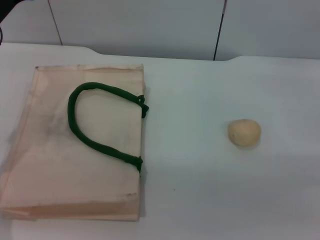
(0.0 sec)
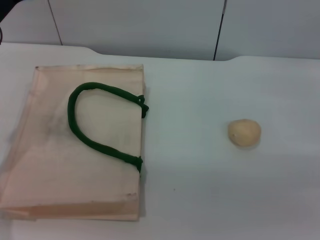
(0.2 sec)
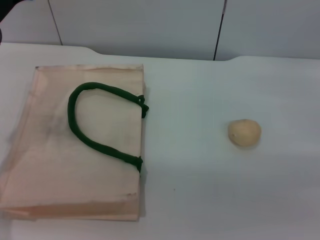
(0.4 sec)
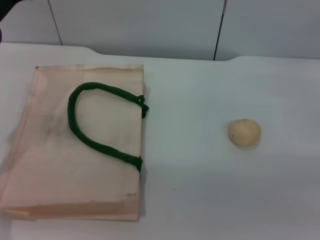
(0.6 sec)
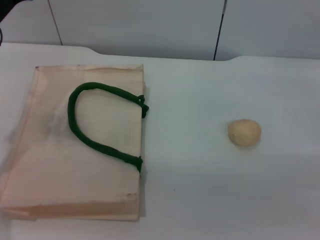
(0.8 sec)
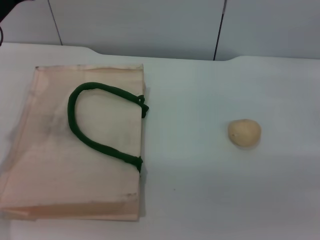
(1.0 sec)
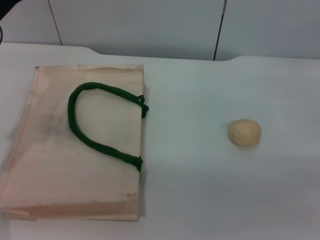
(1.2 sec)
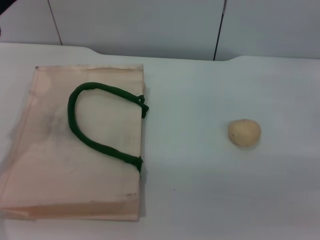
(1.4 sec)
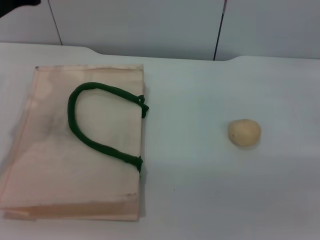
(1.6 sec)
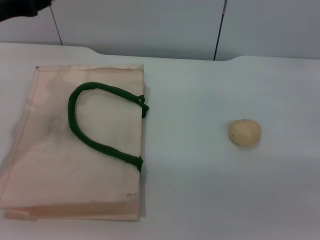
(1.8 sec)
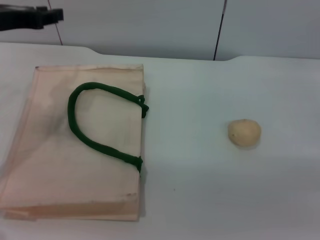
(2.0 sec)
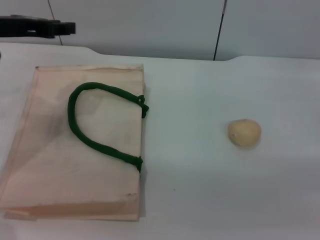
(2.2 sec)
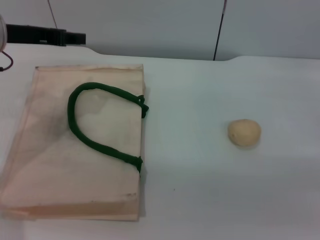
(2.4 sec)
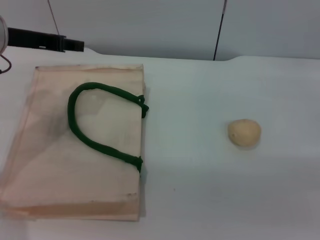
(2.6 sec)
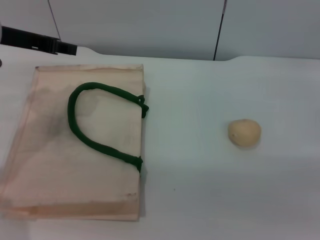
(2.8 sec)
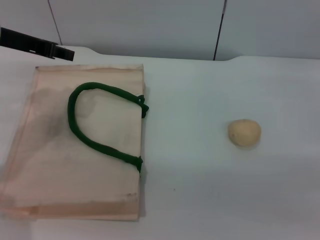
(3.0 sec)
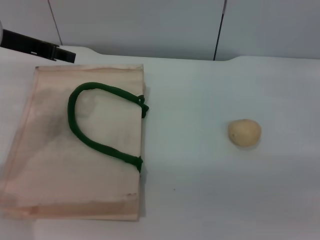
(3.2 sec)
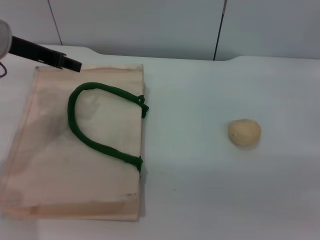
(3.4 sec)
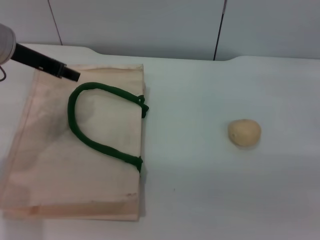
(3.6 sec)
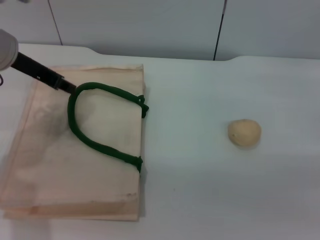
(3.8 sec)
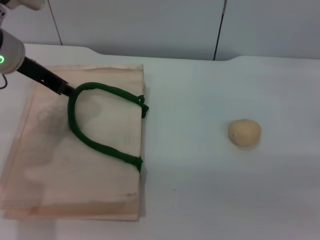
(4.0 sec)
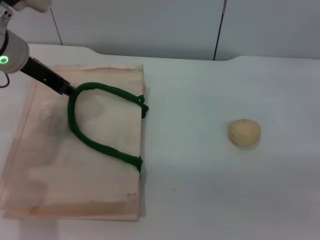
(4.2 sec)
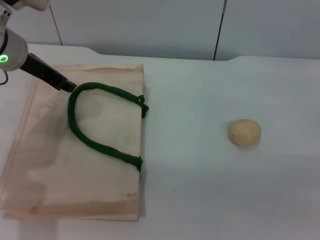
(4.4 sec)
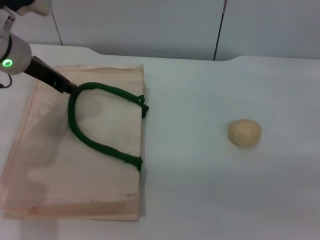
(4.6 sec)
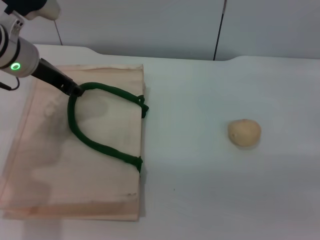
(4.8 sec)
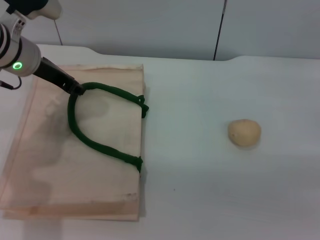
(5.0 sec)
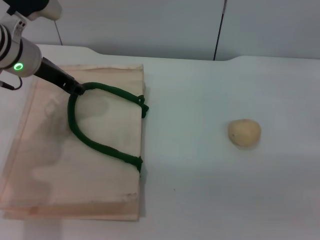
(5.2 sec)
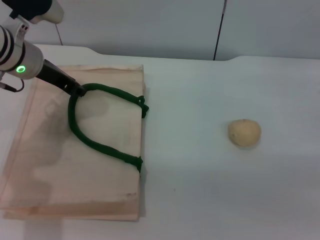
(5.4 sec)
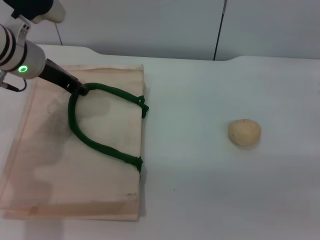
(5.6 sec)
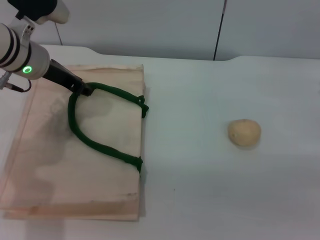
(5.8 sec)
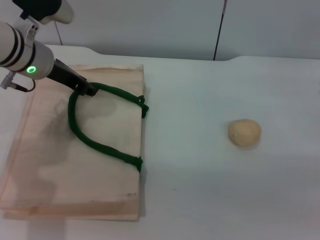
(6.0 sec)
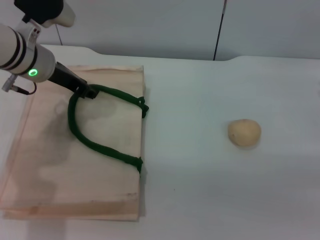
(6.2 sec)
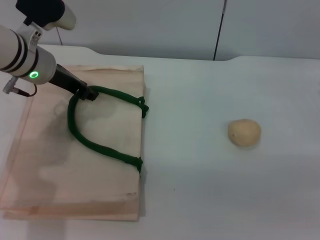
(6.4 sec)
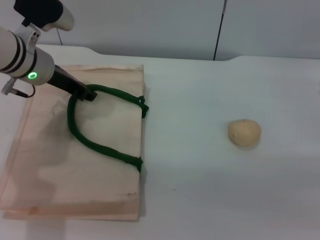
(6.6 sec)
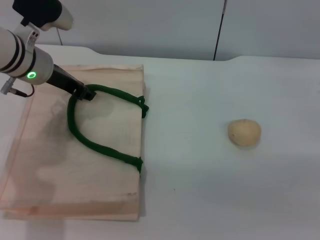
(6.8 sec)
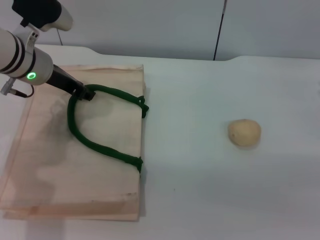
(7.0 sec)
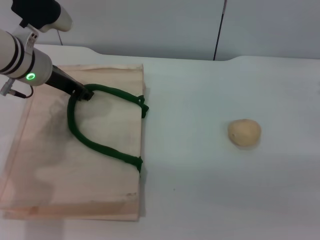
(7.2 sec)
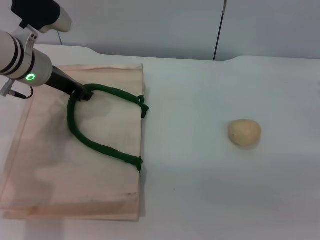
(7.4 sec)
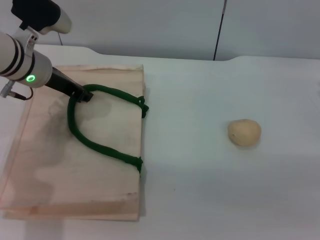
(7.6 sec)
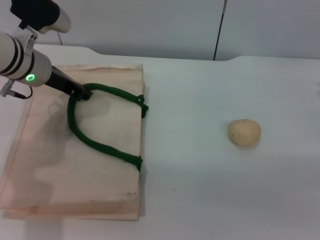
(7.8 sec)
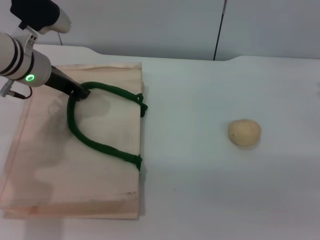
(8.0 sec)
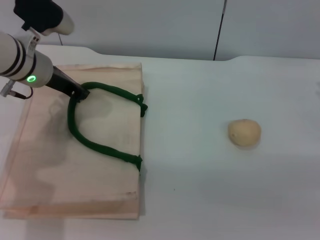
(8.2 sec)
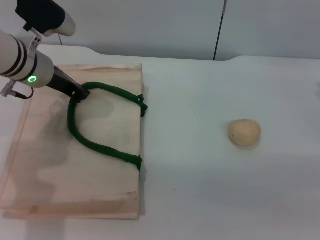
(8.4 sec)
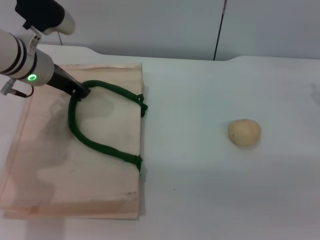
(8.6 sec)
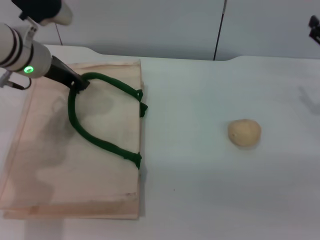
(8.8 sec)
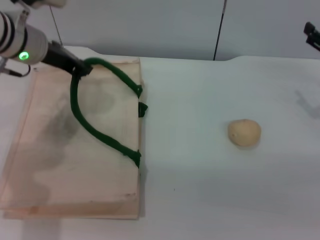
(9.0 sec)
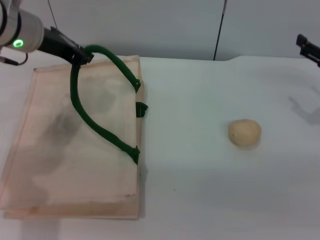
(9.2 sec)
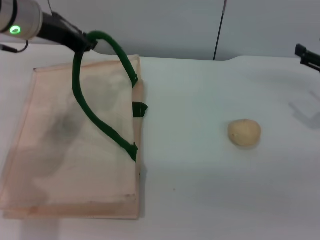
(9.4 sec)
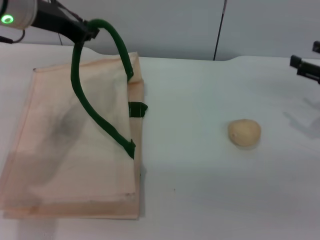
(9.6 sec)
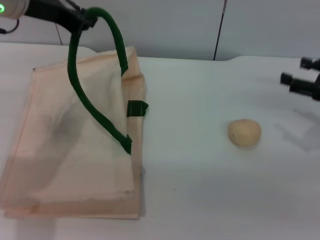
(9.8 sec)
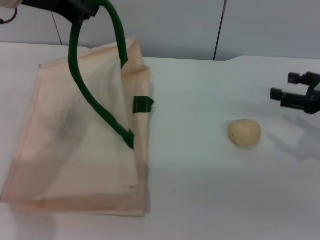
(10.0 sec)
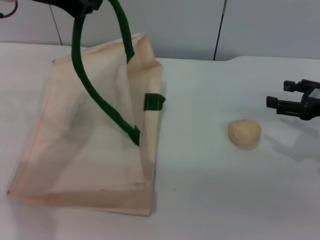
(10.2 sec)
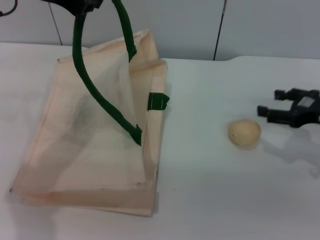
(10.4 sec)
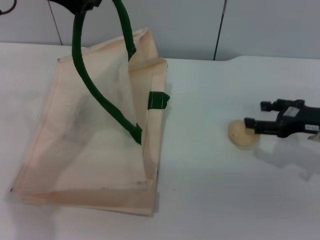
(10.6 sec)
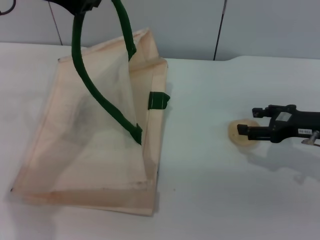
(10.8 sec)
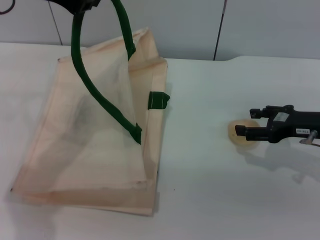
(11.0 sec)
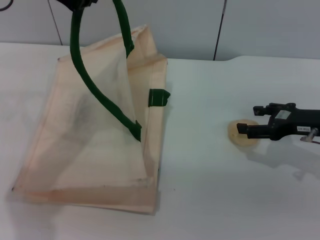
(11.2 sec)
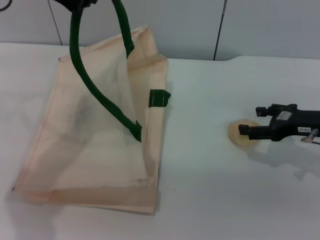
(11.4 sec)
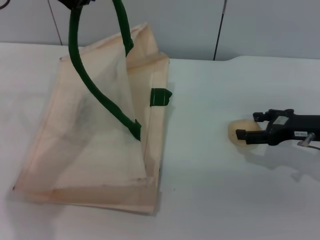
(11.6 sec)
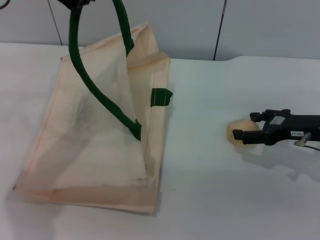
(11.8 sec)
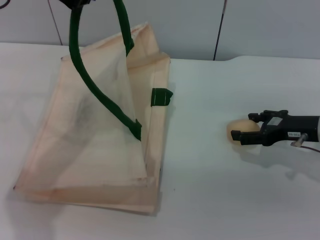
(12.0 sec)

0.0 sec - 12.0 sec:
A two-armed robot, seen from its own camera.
Task of the whole recording: pick up the egg yolk pastry from the table and place it in the white handbag.
Step, 0.0 sec - 9.2 sec: Lift the woven bag with the left gripper to open it.
4.4 sec - 7.6 sec: There are only small adjustments of the grippers.
7.6 sec - 9.0 sec: The left gripper closes its fingers.
9.0 sec - 10.4 sec: The left gripper shifts roughly 10 cm upward.
10.4 sec - 12.0 sec: There are only small adjustments of the grippers.

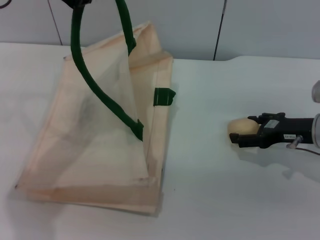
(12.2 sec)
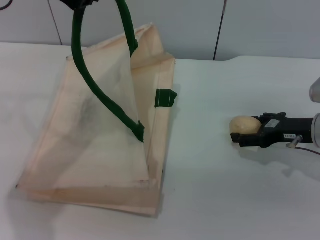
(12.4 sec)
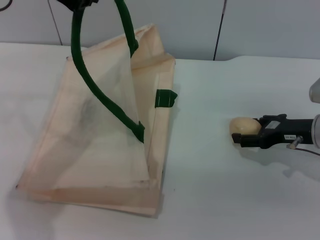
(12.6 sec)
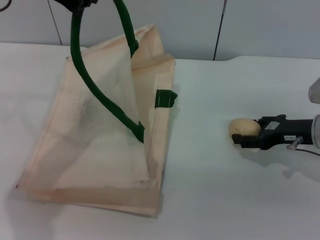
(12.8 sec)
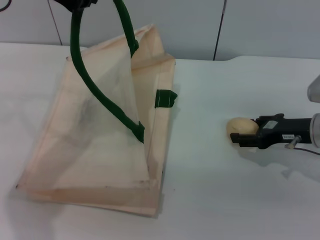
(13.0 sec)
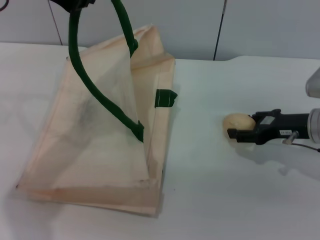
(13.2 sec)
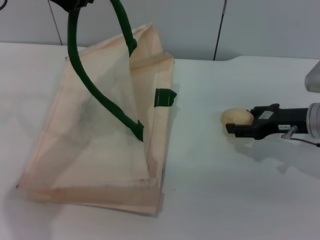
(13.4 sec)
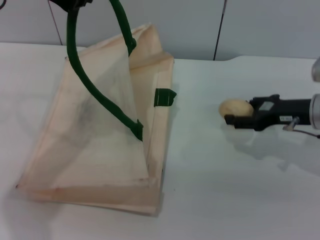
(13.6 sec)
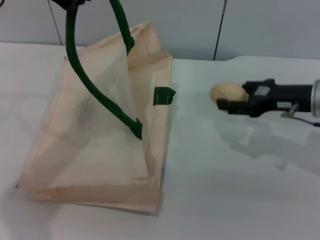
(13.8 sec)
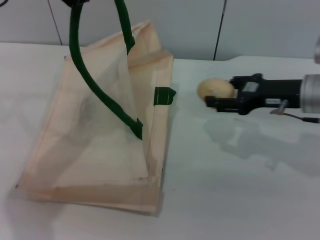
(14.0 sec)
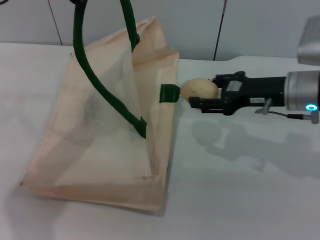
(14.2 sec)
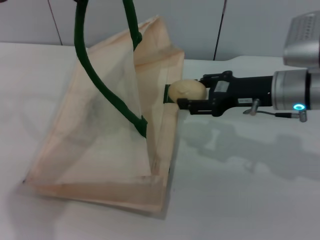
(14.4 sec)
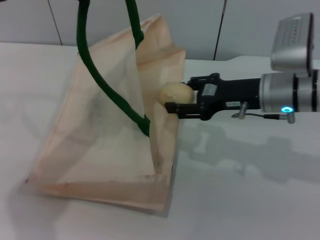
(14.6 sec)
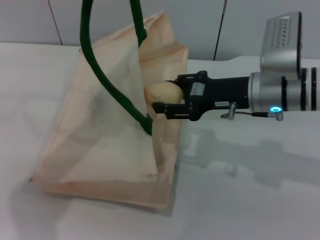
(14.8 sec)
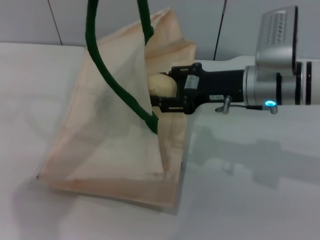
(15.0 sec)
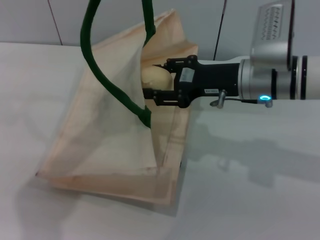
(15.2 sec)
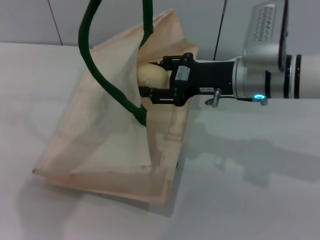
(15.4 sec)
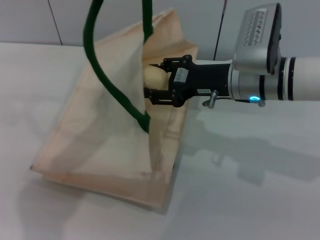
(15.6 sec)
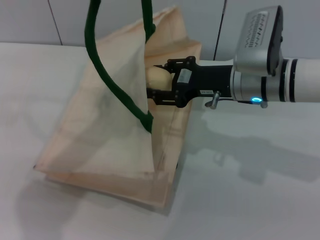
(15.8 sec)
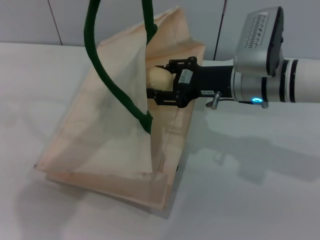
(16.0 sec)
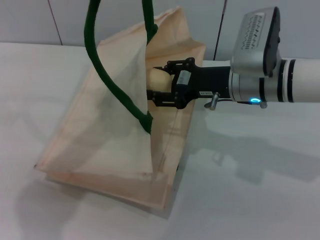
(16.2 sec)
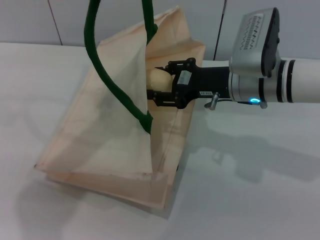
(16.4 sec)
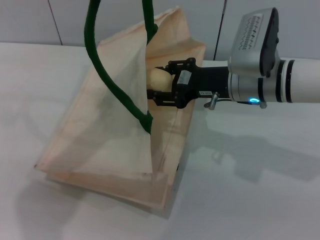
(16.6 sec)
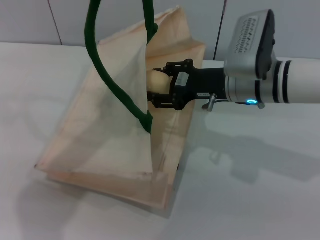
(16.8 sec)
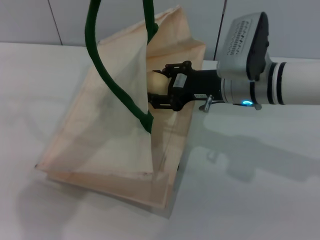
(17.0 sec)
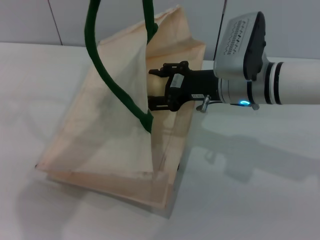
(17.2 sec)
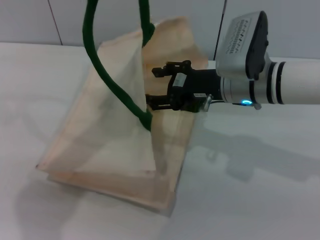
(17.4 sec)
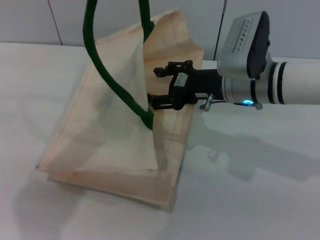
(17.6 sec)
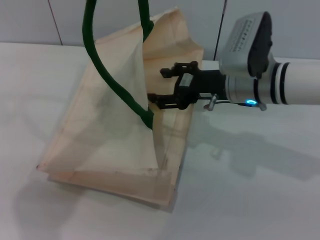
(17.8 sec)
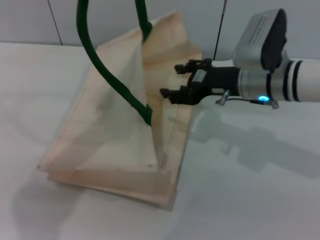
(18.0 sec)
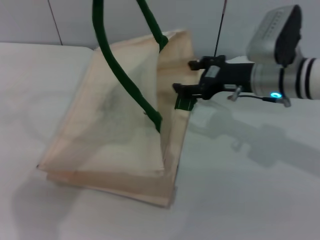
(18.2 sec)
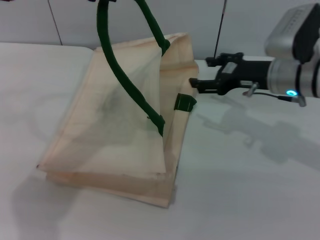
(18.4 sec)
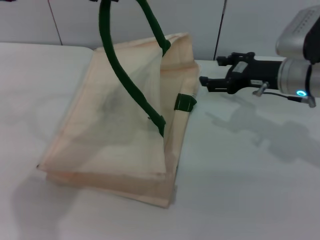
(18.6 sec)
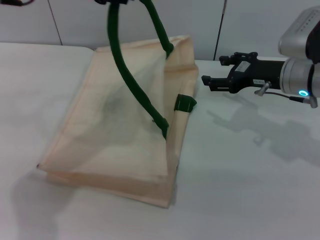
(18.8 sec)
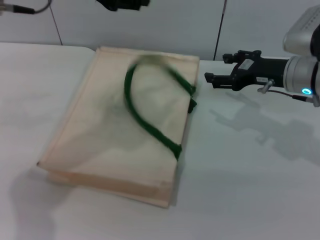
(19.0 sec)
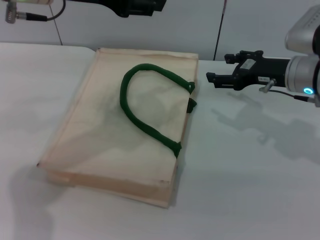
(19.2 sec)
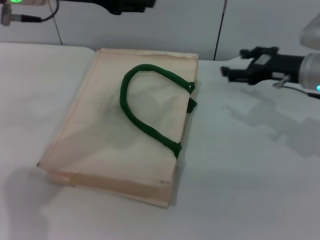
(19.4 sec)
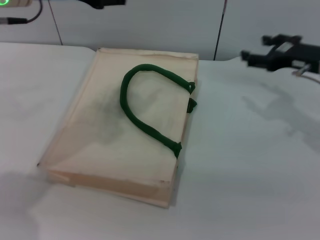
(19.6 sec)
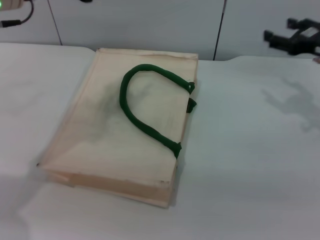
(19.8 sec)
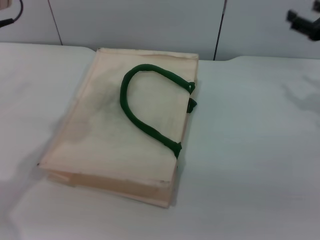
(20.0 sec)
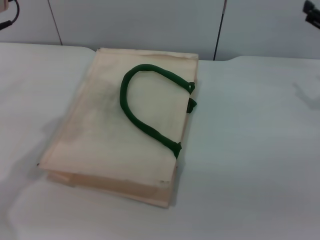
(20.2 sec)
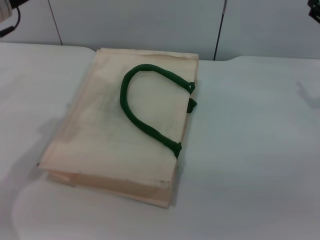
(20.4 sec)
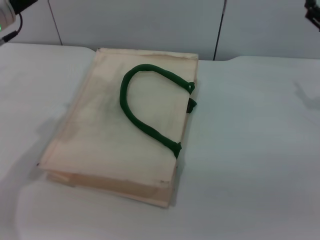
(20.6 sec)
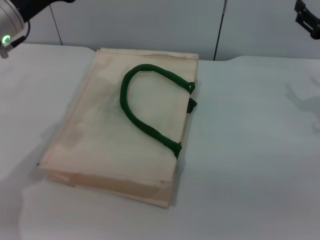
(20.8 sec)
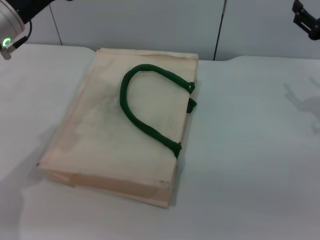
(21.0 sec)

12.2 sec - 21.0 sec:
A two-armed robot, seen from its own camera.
Task of the whole recording: pick up the egg yolk pastry from the table and place it in the white handbag.
Step, 13.6 sec - 17.6 sec: Place the egg yolk pastry into the woven bag with the right gripper.
Step, 18.0 sec - 19.2 sec: Lower the woven bag with the left gripper to close it.
12.2 sec - 13.6 sec: The right gripper closes up.
13.6 sec - 15.2 sec: The right gripper goes roughly 10 cm to the left.
15.2 sec - 16.6 sec: The grippers move only a little.
16.6 sec - 18.0 sec: The right gripper opens.
18.0 sec - 19.6 sec: The right gripper goes roughly 10 cm to the right, while the left gripper shifts approximately 5 cm downward, and opens.
19.6 sec - 21.0 sec: The left gripper shifts roughly 10 cm downward.
